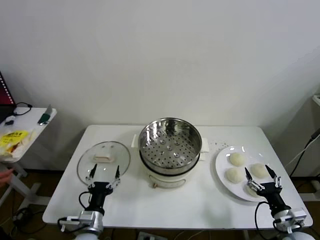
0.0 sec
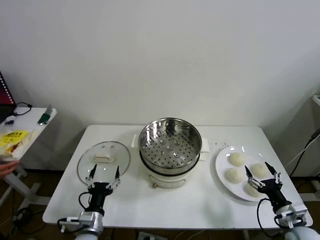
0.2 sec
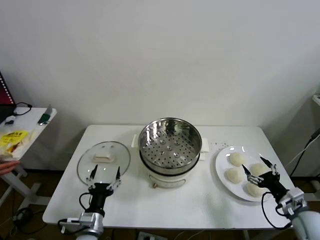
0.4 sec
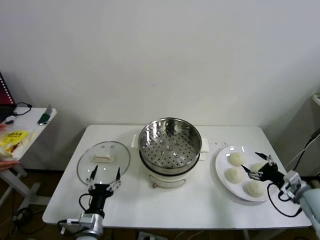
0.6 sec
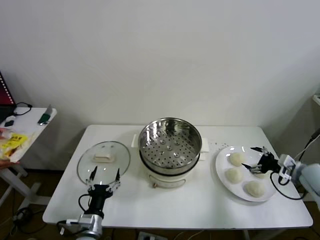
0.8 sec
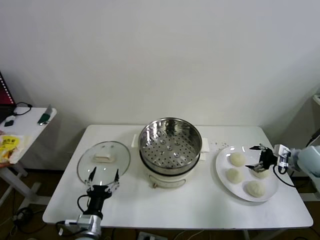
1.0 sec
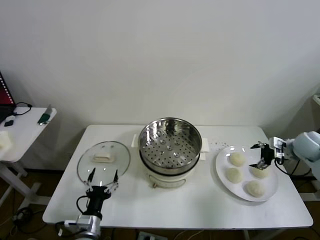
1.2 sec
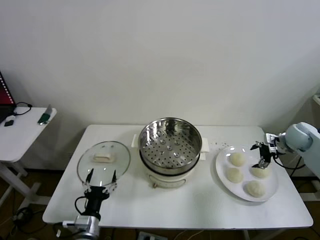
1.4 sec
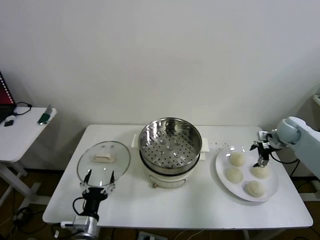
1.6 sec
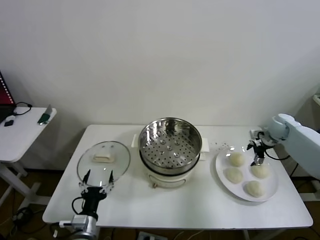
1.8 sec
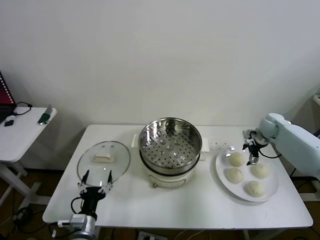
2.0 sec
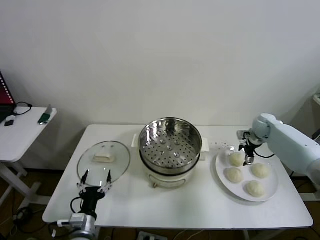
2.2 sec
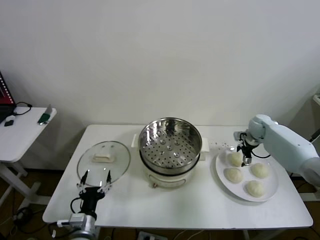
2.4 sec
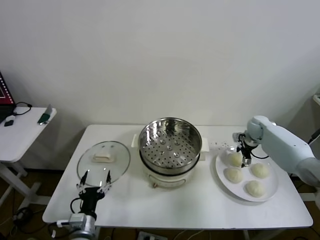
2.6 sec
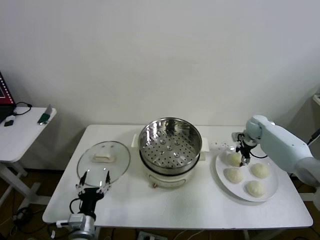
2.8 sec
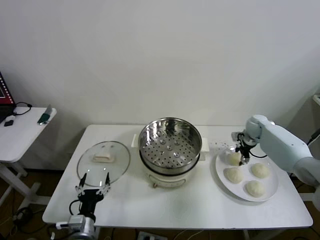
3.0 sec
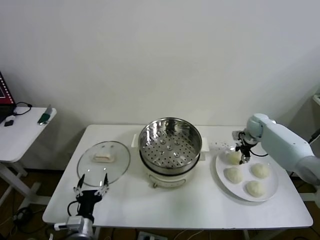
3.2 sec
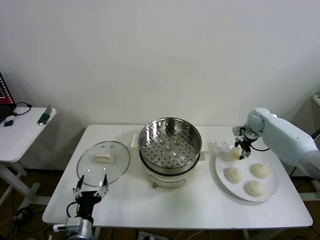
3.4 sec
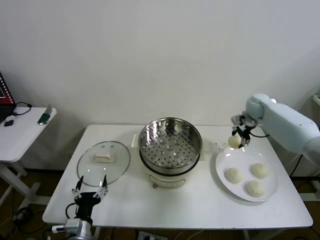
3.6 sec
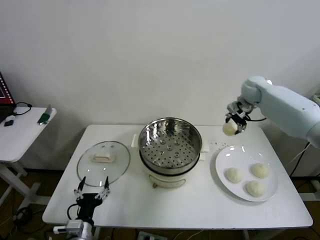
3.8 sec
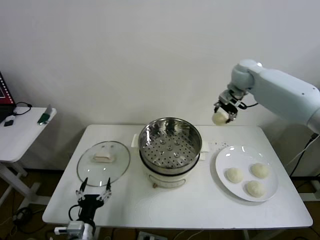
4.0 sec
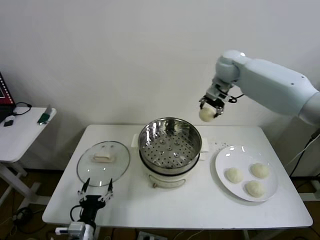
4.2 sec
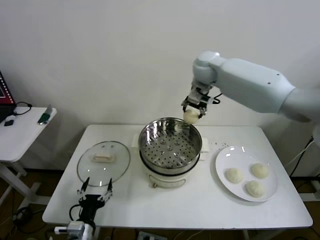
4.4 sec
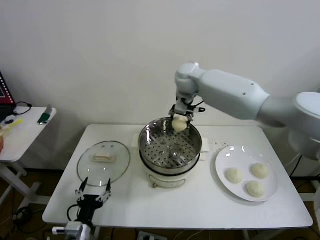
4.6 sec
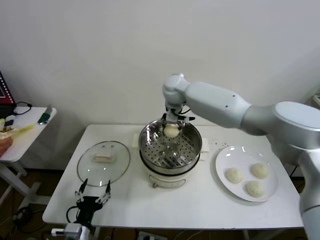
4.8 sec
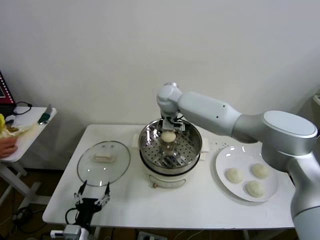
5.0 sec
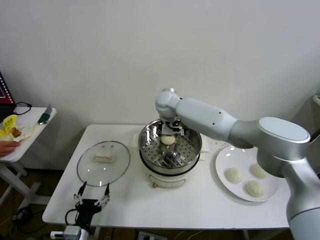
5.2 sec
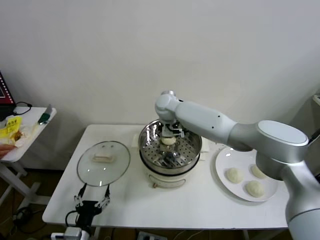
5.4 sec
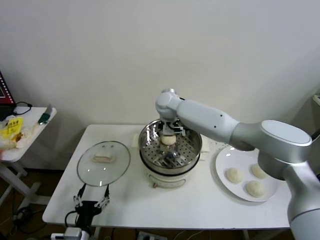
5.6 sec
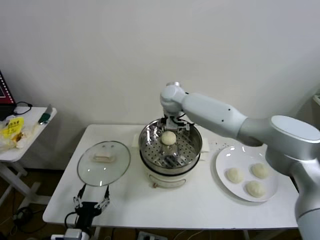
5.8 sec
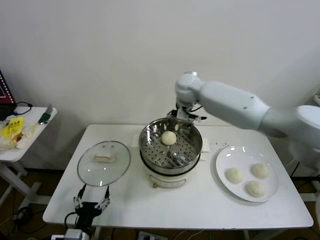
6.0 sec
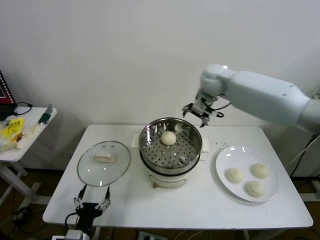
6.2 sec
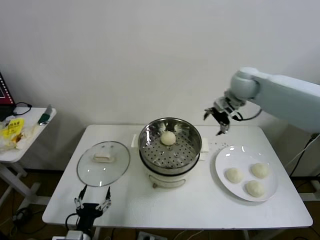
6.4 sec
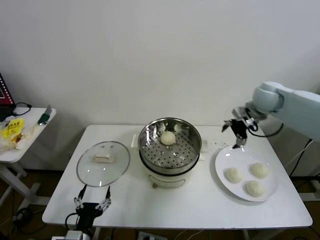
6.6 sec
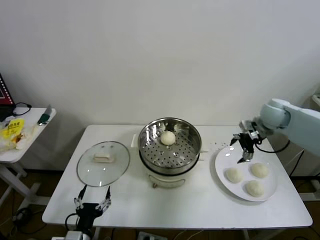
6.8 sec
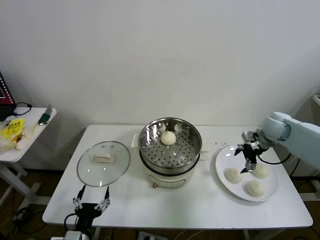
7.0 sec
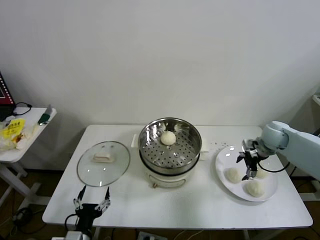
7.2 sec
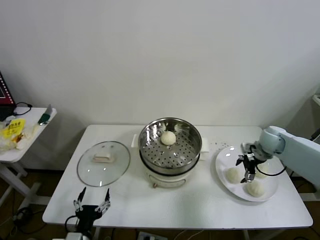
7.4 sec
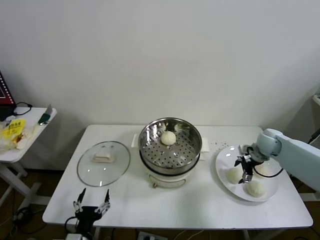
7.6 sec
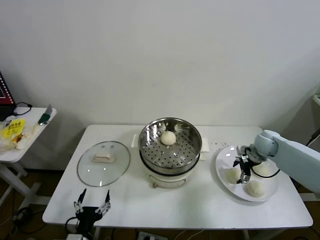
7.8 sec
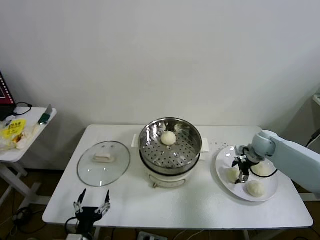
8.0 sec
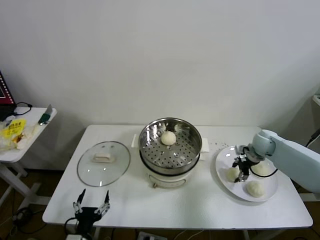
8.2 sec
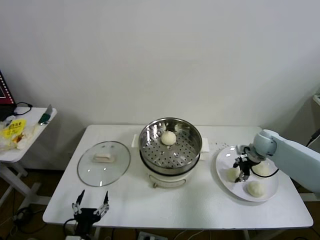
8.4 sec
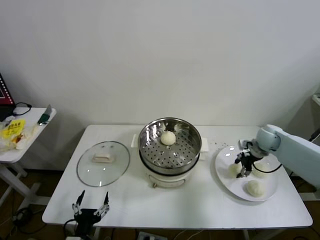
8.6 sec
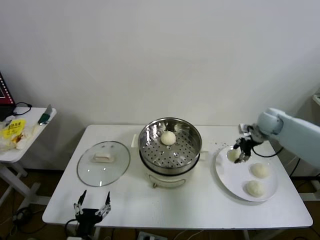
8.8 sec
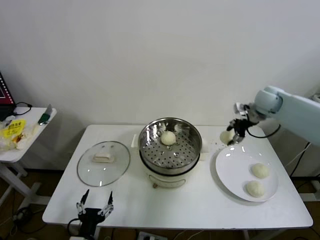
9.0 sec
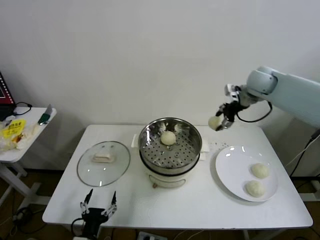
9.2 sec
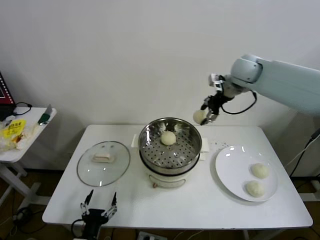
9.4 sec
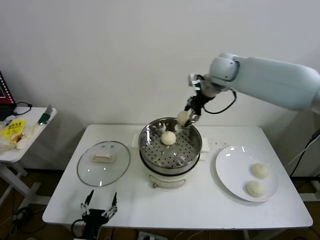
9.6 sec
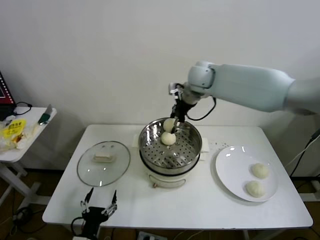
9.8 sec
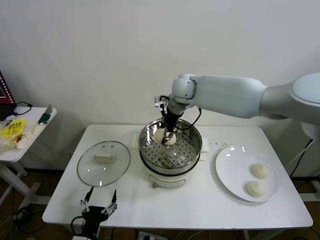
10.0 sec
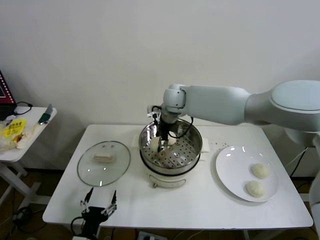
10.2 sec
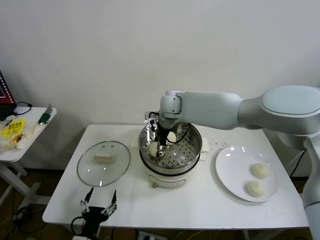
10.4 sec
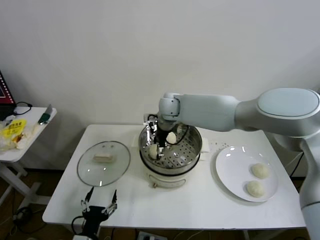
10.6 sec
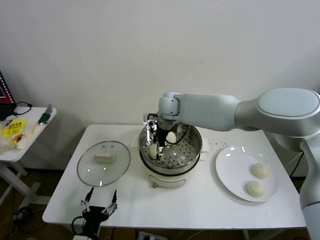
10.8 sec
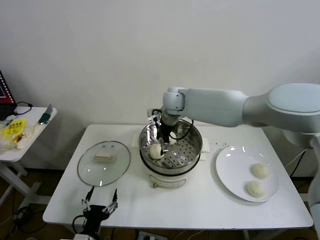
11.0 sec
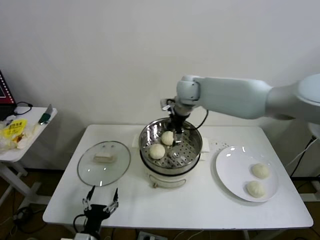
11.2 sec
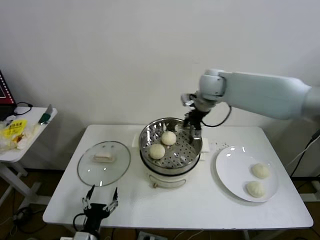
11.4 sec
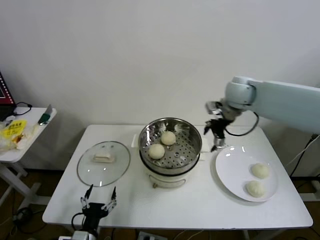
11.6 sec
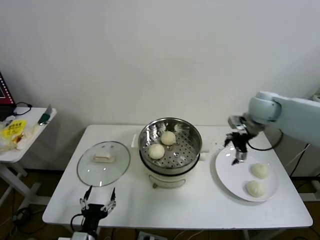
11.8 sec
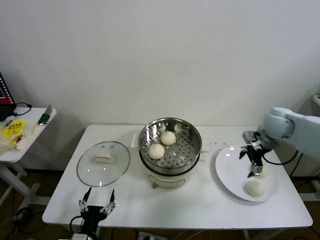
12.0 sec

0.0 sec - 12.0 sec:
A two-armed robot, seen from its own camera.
Step, 0.0 sec - 2.6 sec: Grasp the baozi in the plate with right gripper.
Step, 2.8 sec - 5.4 sec: Place the baozi on the steamer with right gripper.
Step, 5.6 sec - 8.0 sec: Grasp the baozi in the plate with right gripper.
Step, 8.2 sec - 10.8 sec: Place the baozi on the steamer with right gripper.
1.6 sec - 3.0 sec: The right gripper heads to the left and forward, covering some 10 cm, and closes its fingers.
3.0 sec - 4.4 sec: The right gripper shifts about 40 cm to the left and upward.
4.4 sec - 6.0 sec: The right gripper travels downward and back again, some 15 cm each way, and opens up.
6.0 sec - 7.6 sec: The right gripper moves to the right and downward, approximately 35 cm.
7.6 sec - 9.0 sec: The right gripper travels upward and forward by approximately 20 cm, and closes up.
9.0 sec - 10.4 sec: The right gripper shifts about 35 cm to the left.
10.4 sec - 12.0 sec: The right gripper is displaced to the right by about 35 cm, and opens.

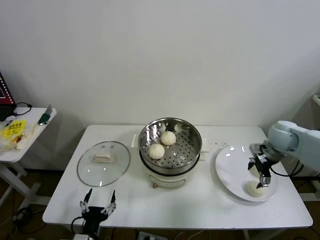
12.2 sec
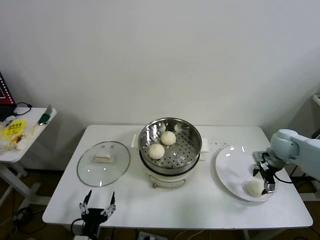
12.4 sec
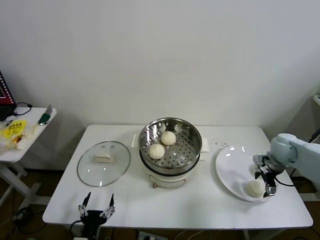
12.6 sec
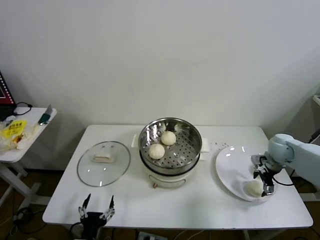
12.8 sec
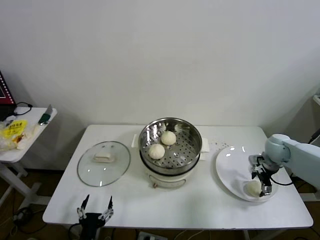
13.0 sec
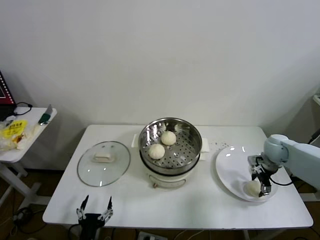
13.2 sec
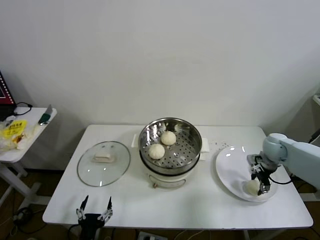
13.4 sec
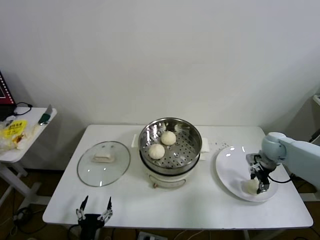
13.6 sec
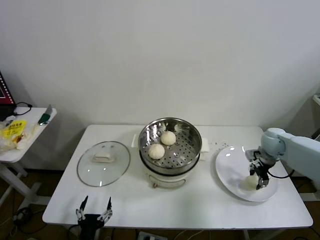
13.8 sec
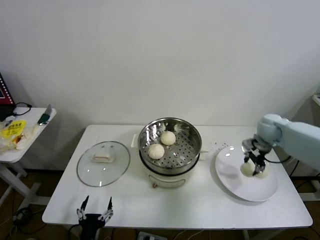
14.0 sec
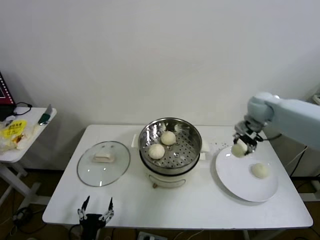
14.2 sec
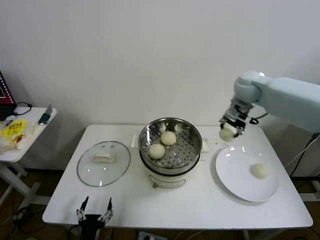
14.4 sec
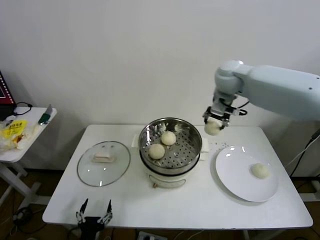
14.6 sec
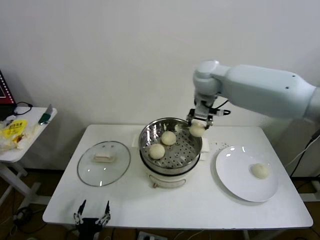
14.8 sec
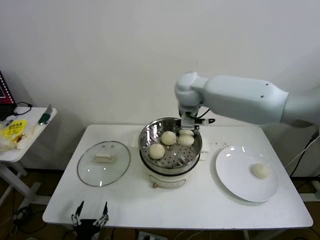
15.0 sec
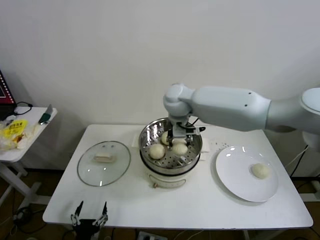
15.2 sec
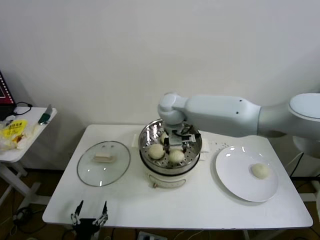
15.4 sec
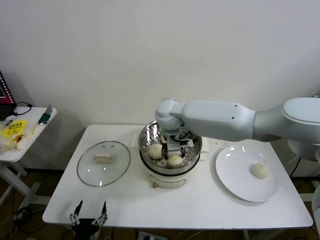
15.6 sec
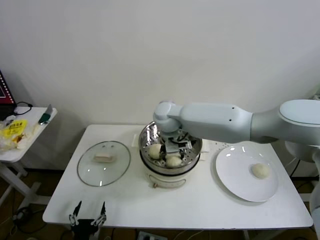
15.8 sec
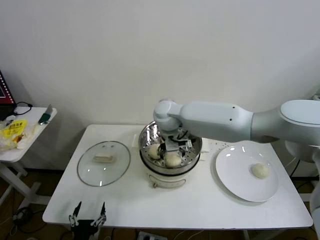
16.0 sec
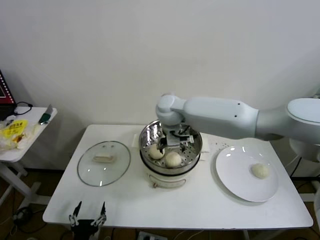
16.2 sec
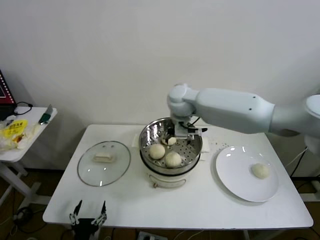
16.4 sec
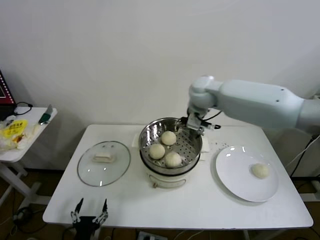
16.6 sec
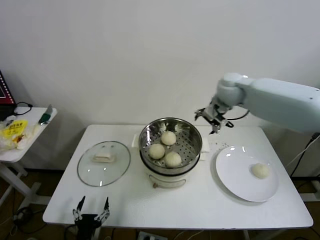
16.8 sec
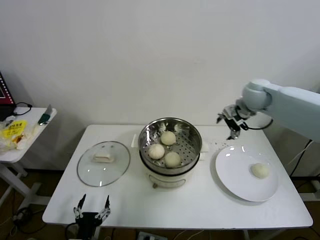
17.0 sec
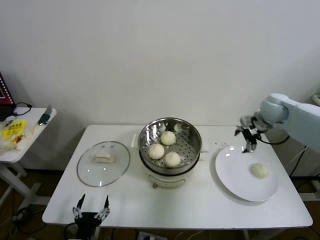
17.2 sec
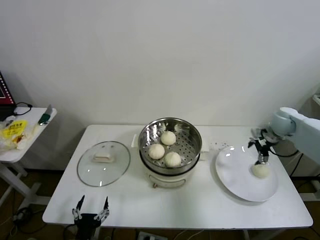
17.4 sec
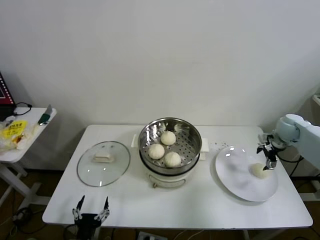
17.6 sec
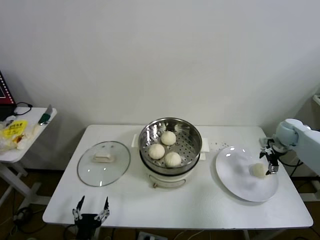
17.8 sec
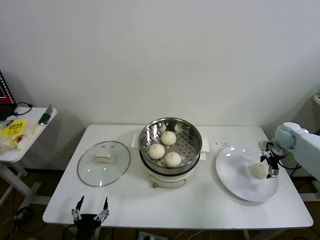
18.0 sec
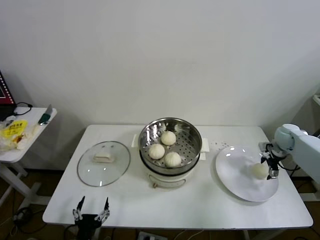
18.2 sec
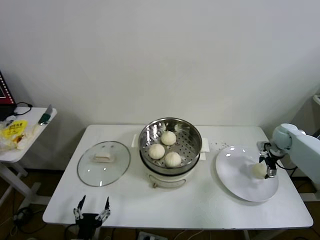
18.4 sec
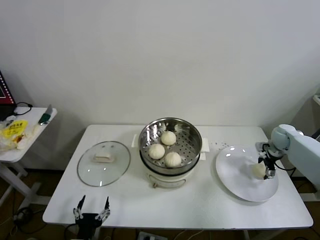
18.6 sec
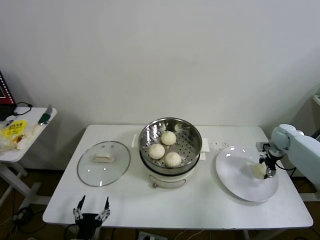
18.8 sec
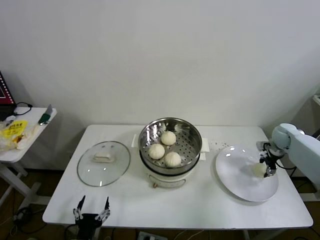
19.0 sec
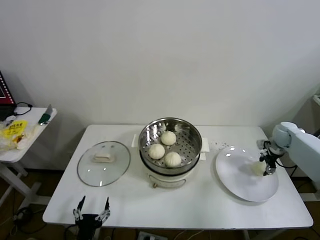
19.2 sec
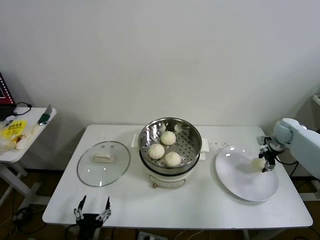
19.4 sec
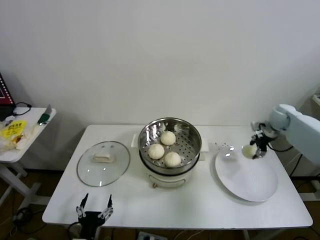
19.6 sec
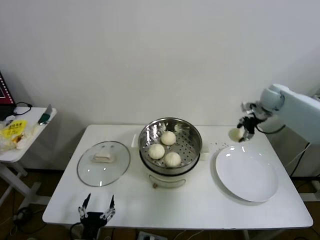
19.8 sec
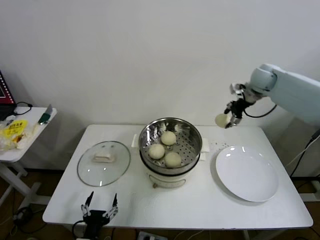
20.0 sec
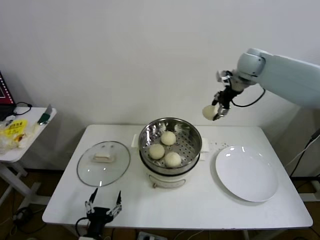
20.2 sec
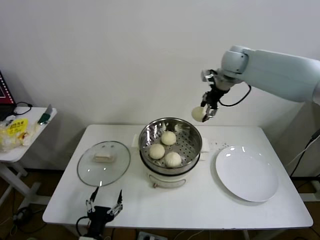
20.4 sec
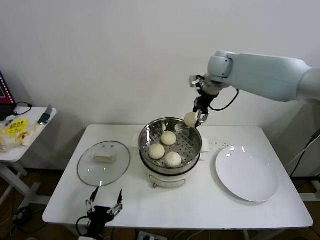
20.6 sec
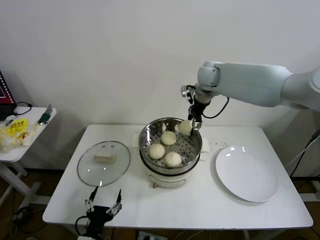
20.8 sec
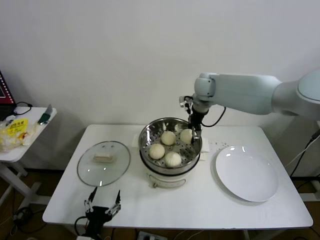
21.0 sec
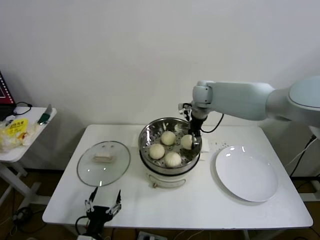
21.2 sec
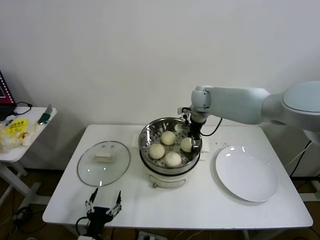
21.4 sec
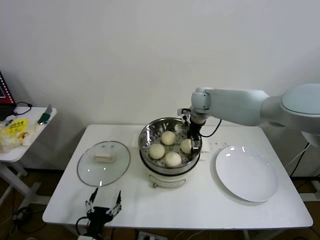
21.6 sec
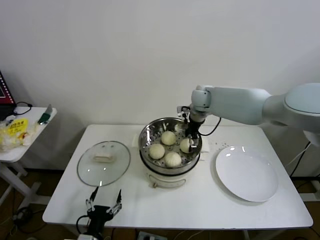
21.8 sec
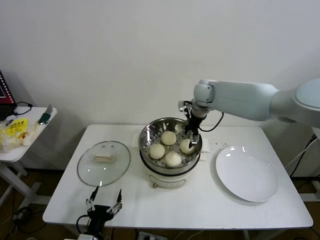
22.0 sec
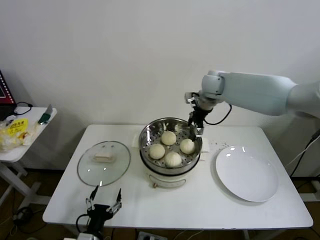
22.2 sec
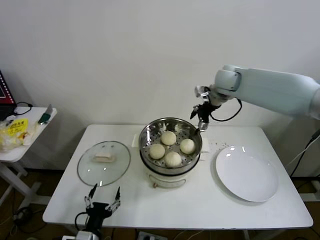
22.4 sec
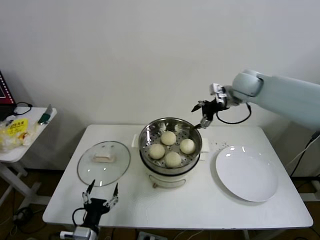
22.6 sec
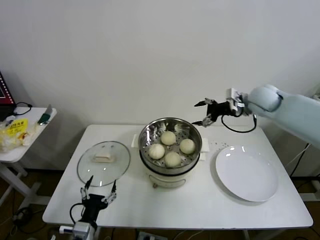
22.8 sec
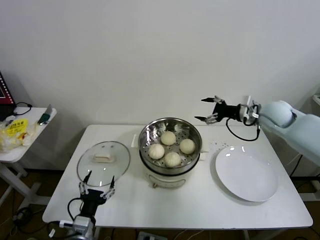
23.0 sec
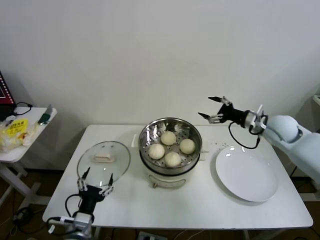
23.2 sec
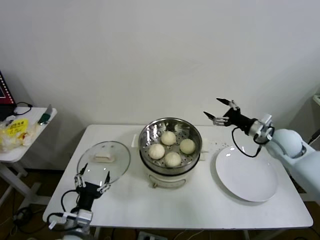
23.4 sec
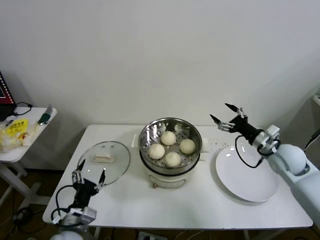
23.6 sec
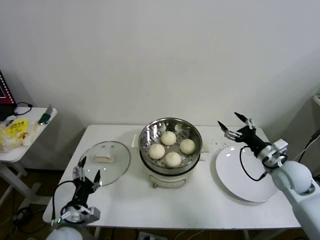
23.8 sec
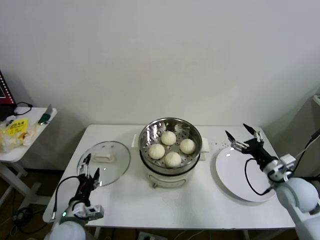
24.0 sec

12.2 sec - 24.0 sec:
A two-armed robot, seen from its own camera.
Step, 12.2 sec - 13.6 sec: Grasp the baozi in the plate with right gripper.
Step, 13.8 sec - 15.8 sec: Place the baozi on the steamer with right gripper.
Step, 16.2 sec - 18.6 sec: Grasp the baozi in the plate with right gripper.
Step, 18.8 sec - 21.6 sec: Place the baozi on the steamer with right gripper.
12.2 sec - 13.6 sec: The right gripper shifts some 5 cm downward, and closes up.
13.6 sec - 15.2 sec: The right gripper goes some 40 cm to the left and upward.
15.2 sec - 16.6 sec: The right gripper goes approximately 10 cm to the right, and opens.
16.6 sec - 18.2 sec: The right gripper goes roughly 40 cm to the right and downward.
18.2 sec - 19.6 sec: The right gripper is displaced upward by roughly 5 cm, and closes up.
19.6 sec - 21.0 sec: The right gripper travels to the left and upward by about 35 cm.
21.0 sec - 22.6 sec: The right gripper moves to the right, some 10 cm, and opens.
22.6 sec - 24.0 sec: The left gripper moves forward, some 5 cm, while the right gripper shifts roughly 35 cm backward, downward and to the right.
